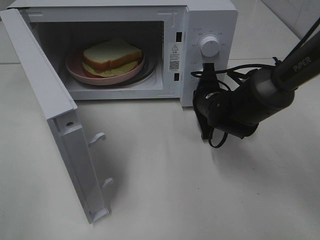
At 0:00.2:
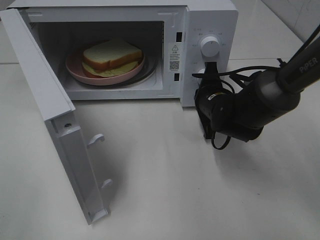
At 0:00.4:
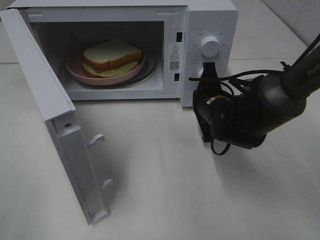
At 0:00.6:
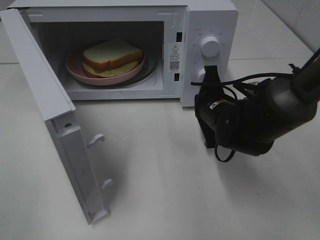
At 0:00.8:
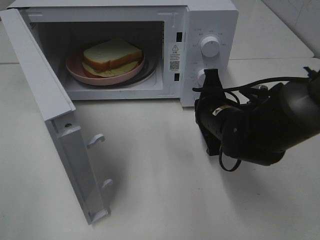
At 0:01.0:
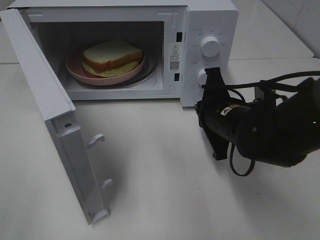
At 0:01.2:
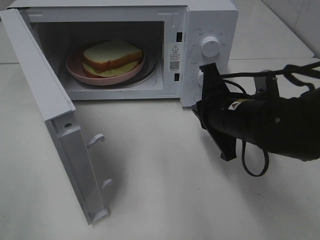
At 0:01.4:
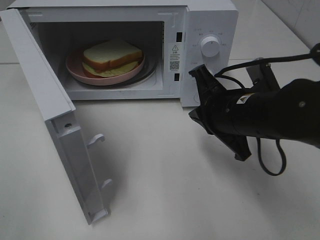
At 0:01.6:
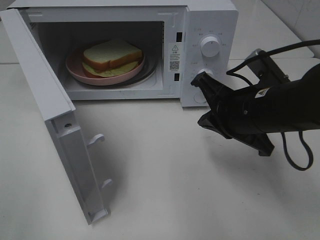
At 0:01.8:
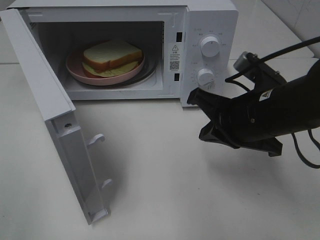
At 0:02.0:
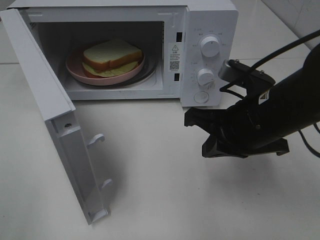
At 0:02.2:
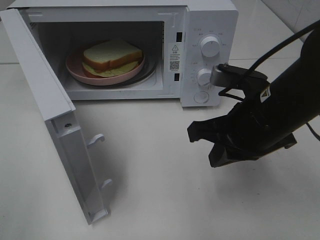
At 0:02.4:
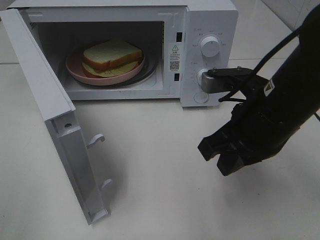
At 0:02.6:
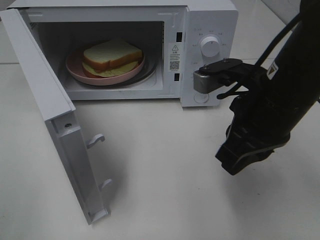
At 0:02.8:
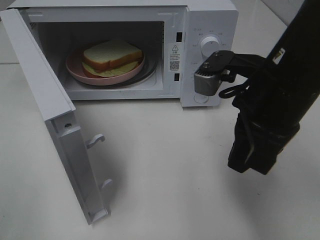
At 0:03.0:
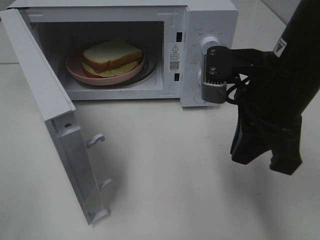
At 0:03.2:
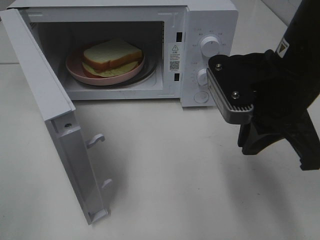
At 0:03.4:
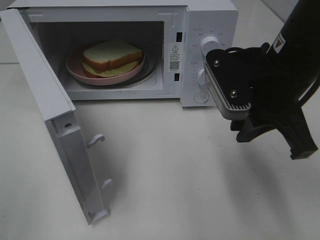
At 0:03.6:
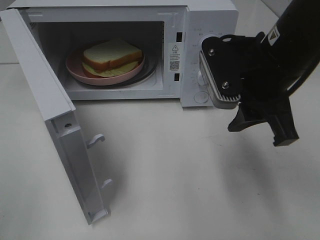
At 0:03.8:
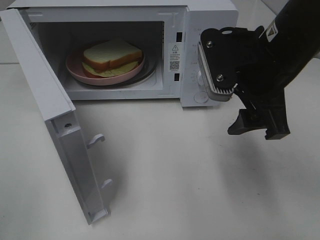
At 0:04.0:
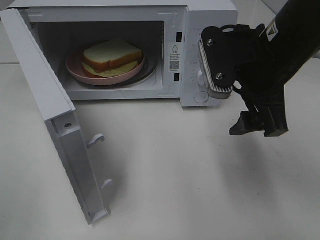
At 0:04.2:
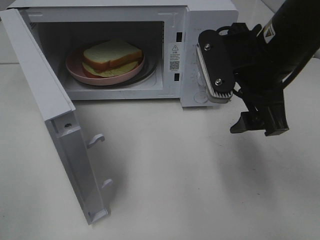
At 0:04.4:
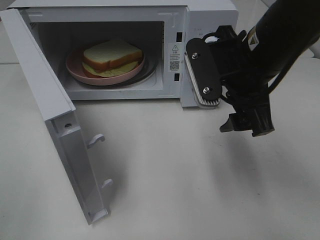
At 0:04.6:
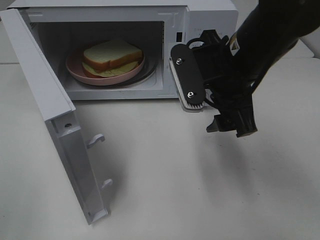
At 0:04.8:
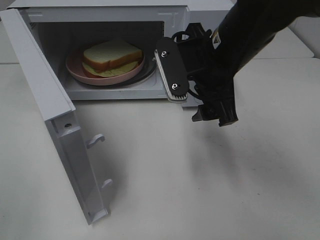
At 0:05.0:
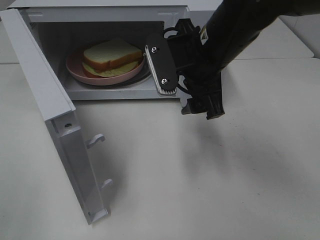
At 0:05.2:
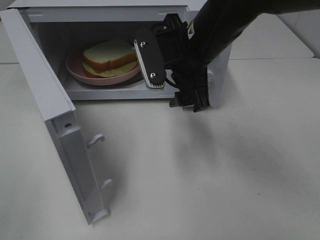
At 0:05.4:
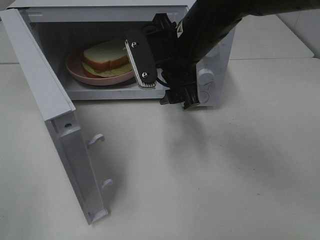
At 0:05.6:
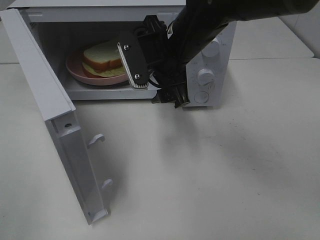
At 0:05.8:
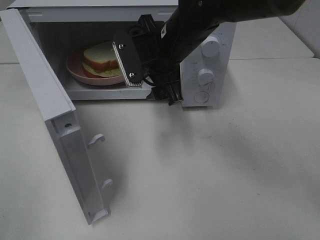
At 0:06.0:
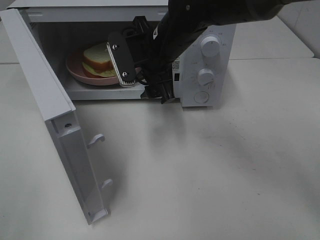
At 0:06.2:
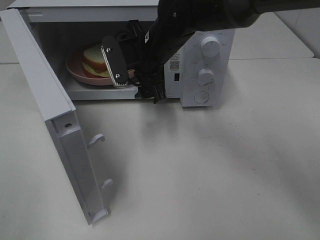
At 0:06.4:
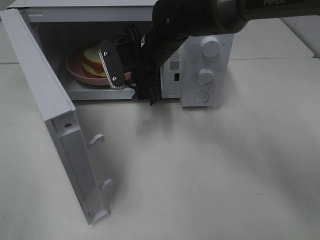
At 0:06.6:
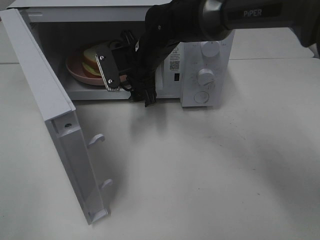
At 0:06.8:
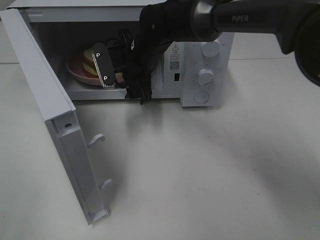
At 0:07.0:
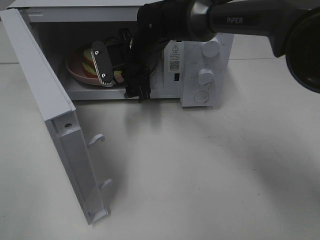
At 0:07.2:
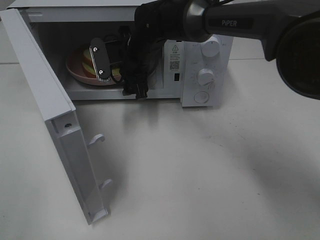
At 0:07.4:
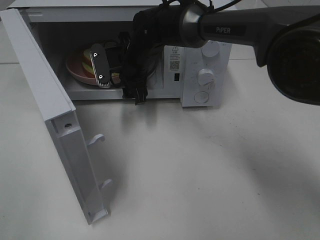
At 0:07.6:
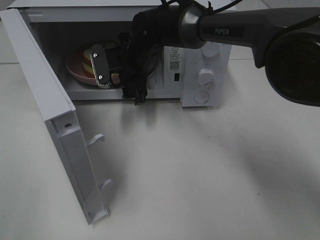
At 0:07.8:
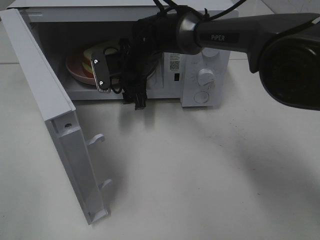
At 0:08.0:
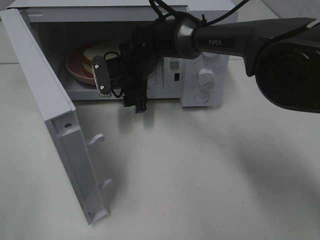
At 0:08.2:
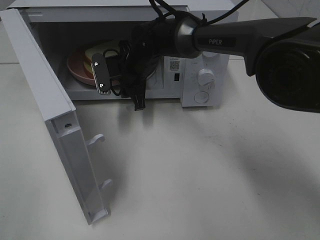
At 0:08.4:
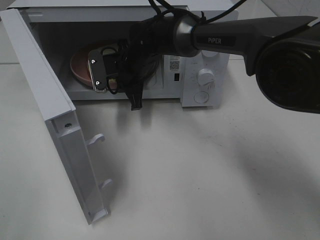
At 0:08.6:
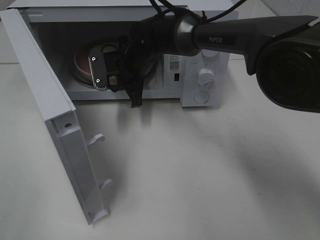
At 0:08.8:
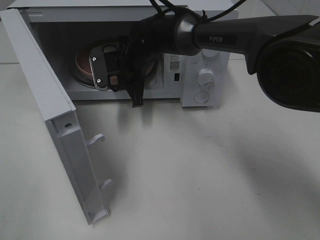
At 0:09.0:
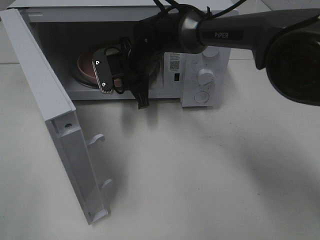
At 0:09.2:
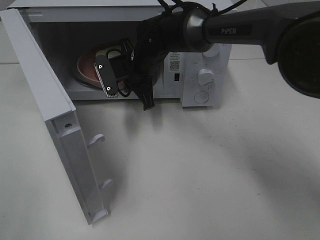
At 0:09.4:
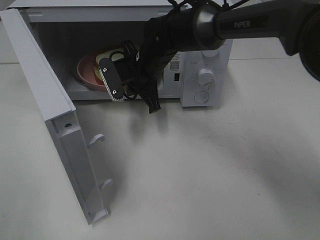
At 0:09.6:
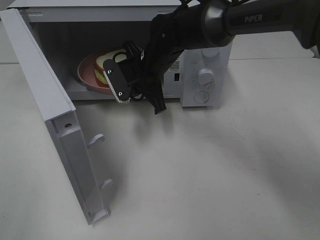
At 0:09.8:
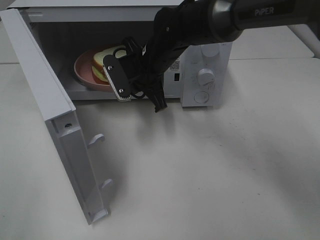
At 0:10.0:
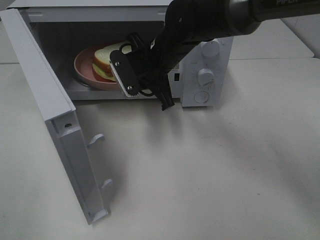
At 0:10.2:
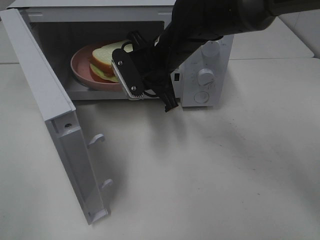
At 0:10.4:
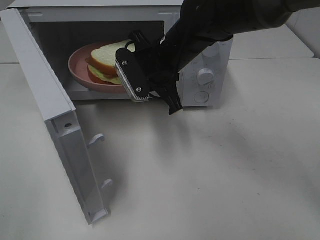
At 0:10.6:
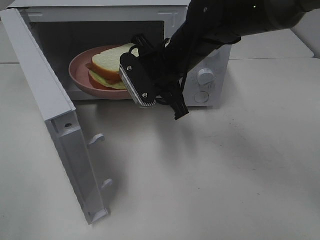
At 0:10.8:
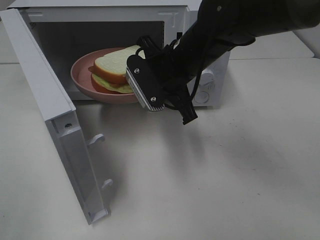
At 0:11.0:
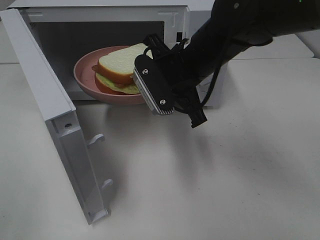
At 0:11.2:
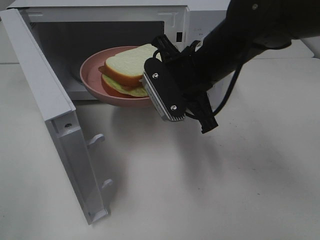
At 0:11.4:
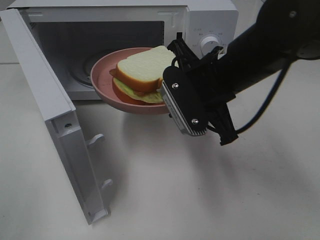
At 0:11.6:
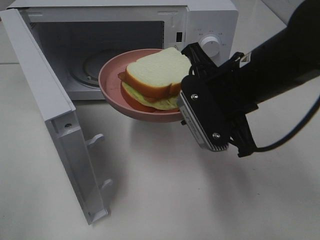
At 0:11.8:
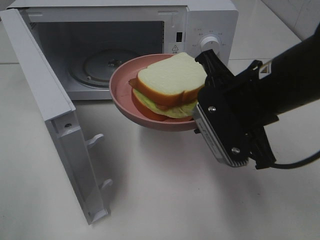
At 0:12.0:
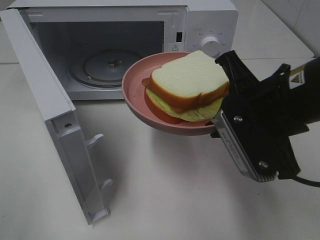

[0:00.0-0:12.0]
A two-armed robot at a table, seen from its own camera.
Task of the whole recording: Heat Sandwich.
Step, 0:01.2 to 0:08.4: Right hand: grab the plate with the sandwich.
0:00.0 to 0:01.6: The right gripper heads backward and upward, covering some 15 cm.
0:01.6 to 0:03.0: The right gripper moves upward, approximately 5 cm.
0:03.0 to 0:04.4: The right gripper opens up.
0:04.4 to 0:06.0: The right gripper moves forward and to the left, some 15 cm.
0:06.0 to 0:07.6: The right gripper heads forward and downward, covering roughly 10 cm.
0:07.6 to 0:09.0: The right gripper closes up.
0:09.0 to 0:10.4: The right gripper heads backward, to the right and upward, covering some 10 cm.
0:10.4 to 0:12.0: The right gripper moves backward and to the right, some 20 cm.

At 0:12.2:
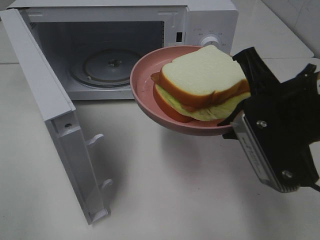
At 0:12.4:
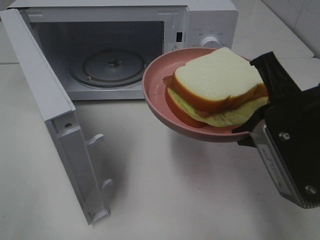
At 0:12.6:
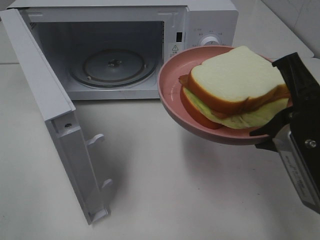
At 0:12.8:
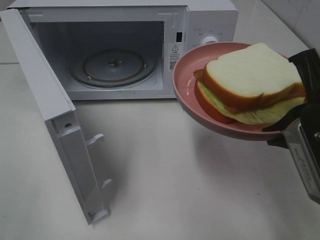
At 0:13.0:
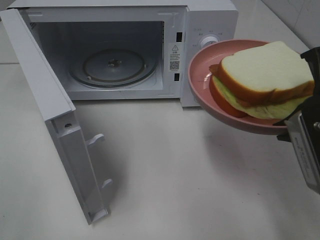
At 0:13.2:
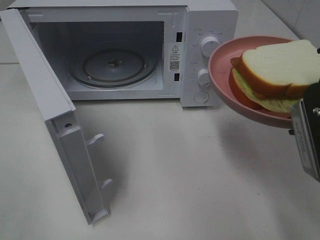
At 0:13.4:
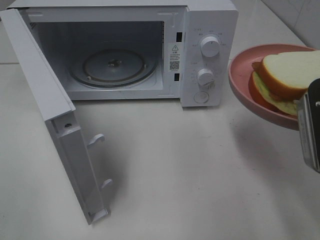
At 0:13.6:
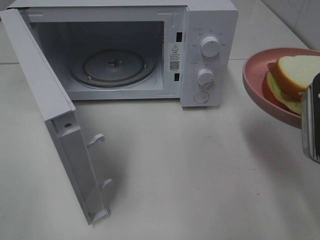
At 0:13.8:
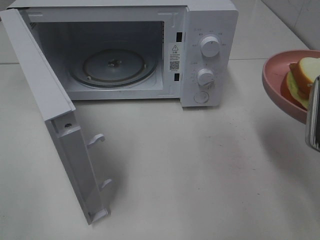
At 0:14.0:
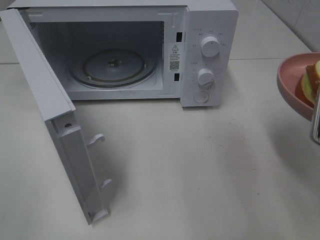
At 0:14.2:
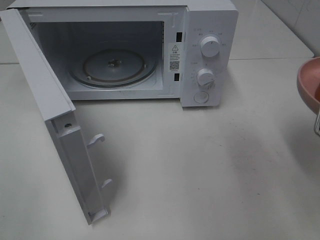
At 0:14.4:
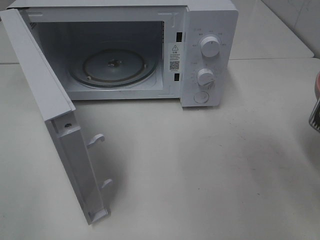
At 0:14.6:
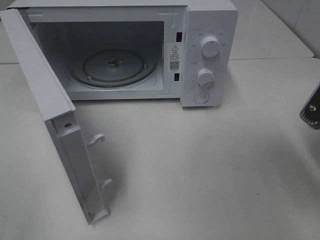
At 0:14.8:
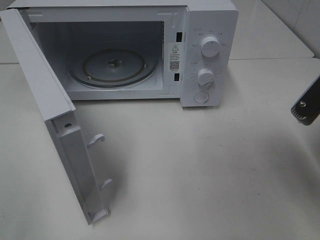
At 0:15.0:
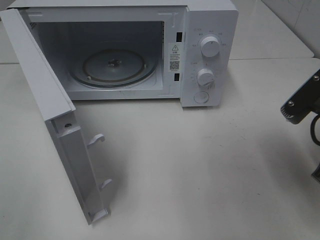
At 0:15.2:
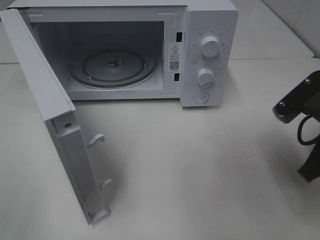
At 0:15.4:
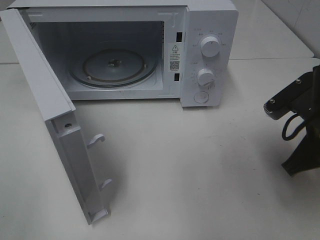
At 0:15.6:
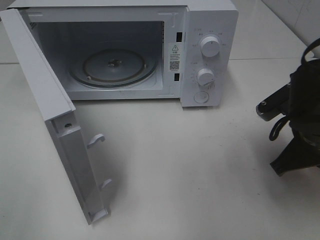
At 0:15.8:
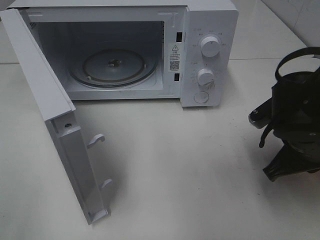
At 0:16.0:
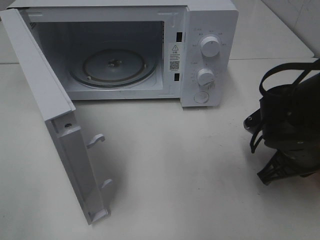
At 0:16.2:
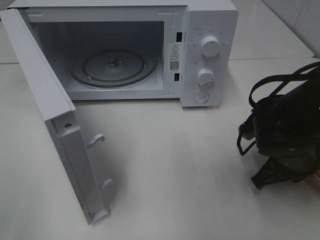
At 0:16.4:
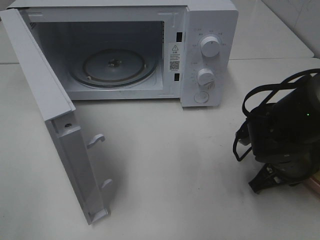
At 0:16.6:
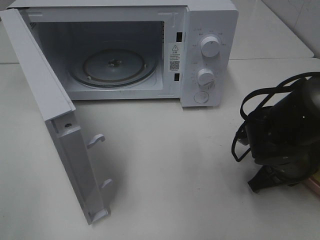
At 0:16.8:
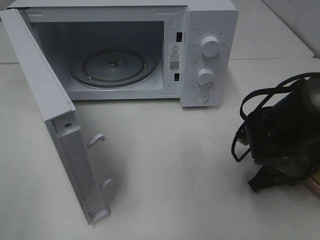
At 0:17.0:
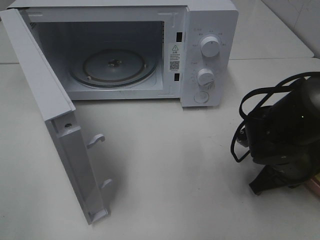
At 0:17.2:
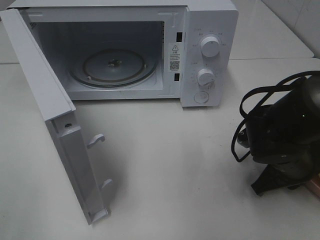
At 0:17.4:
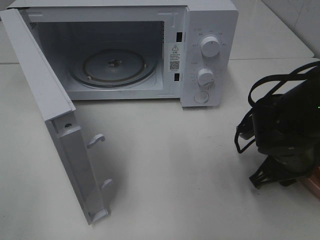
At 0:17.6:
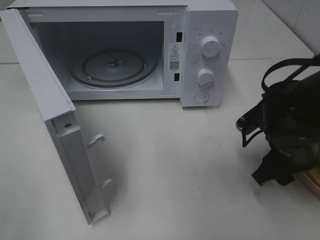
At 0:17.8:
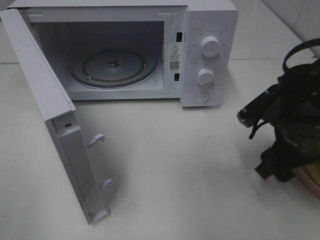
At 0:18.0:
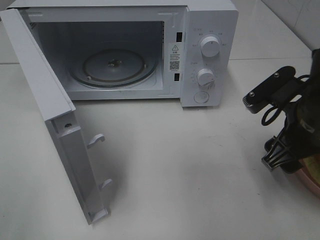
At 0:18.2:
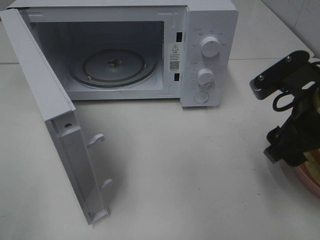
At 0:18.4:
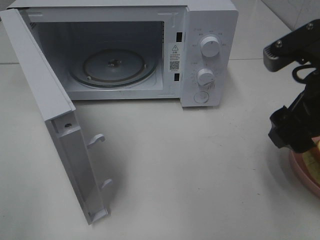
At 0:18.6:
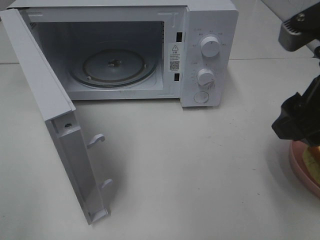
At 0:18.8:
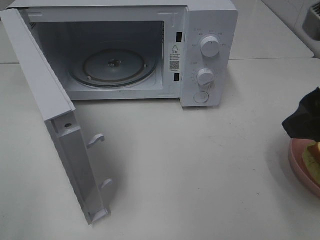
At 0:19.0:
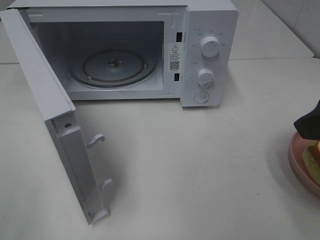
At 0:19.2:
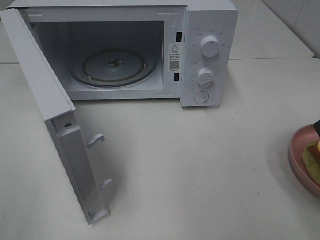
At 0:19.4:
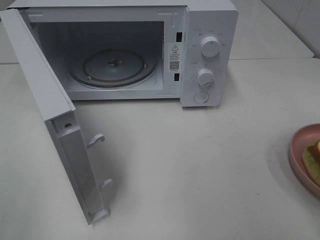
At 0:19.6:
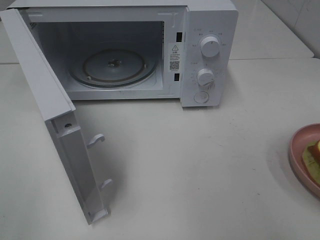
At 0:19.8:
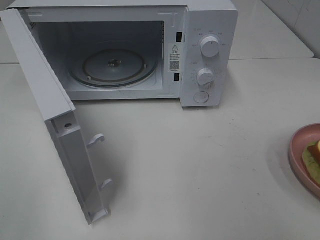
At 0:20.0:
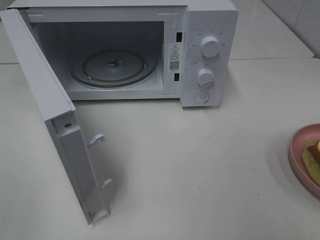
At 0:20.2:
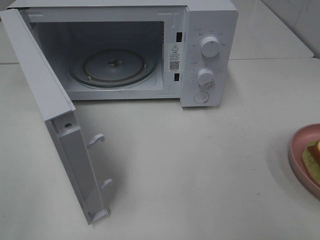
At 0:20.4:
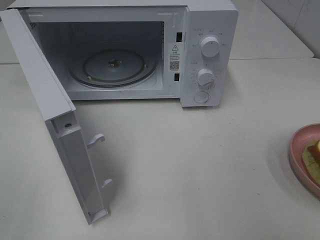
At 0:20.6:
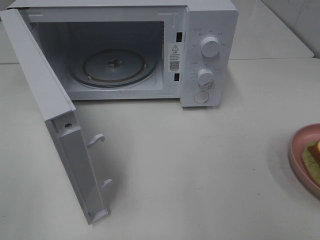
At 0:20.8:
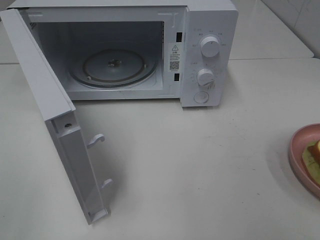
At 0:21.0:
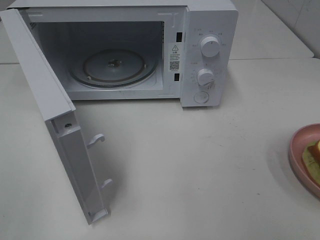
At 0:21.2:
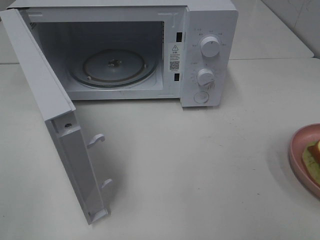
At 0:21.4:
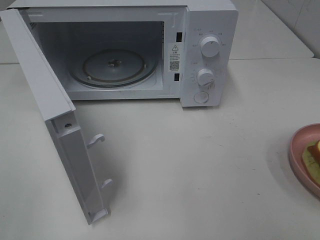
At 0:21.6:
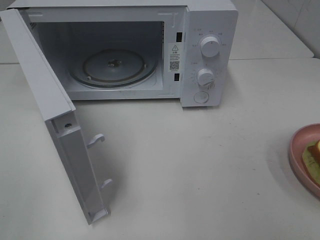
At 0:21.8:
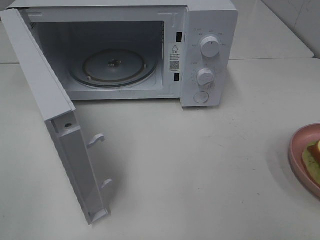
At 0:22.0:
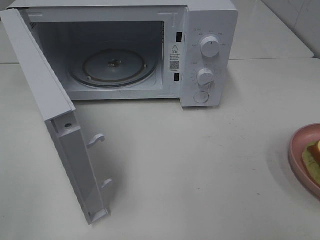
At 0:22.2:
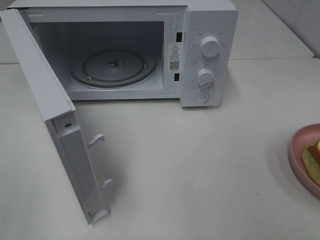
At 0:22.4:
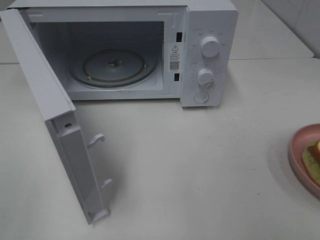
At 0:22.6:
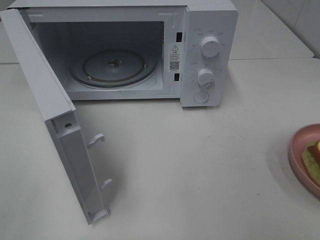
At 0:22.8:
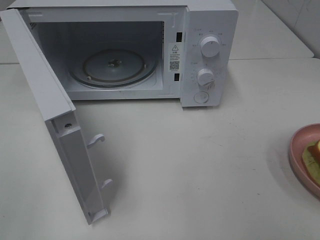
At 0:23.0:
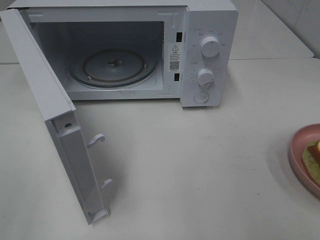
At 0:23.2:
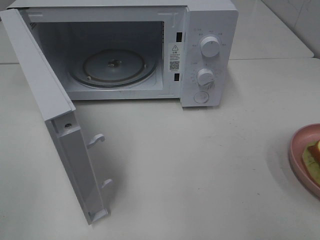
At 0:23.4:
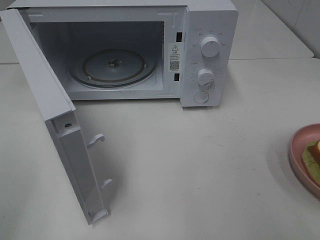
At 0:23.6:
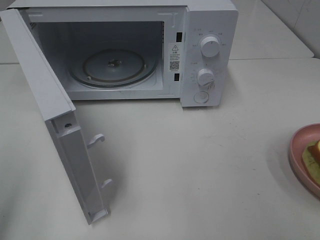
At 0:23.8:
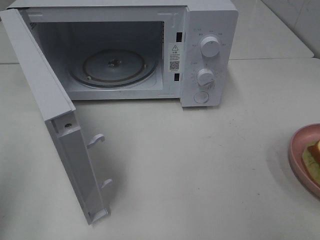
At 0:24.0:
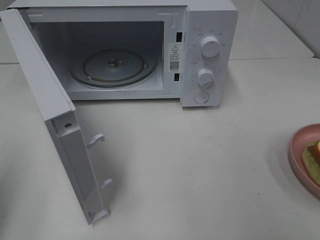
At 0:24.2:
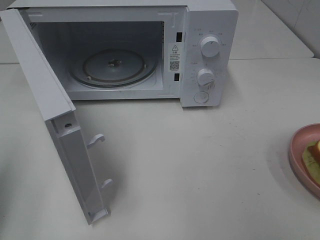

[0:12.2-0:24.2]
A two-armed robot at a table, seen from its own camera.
Task of the whole recording: Heat Sandwich.
Step, 0:12.2 to 0:18.8: Right hand: place the plate on the table.
0:12.2 to 0:13.8: The right gripper heads to the right, covering some 5 cm.
0:13.8 to 0:15.2: The right gripper goes some 5 cm downward.
0:15.2 to 0:16.6: The right gripper heads downward, covering about 10 cm.
0:16.6 to 0:18.2: The right gripper is displaced upward by approximately 15 cm, and opens its fingers.
0:18.2 to 0:19.8: The right gripper heads backward, upward and to the right, covering some 20 cm.
0:21.2 to 0:22.6: Neither gripper changes place.
0:22.6 to 0:24.2: The left gripper heads forward, covering approximately 10 cm, and closes up.
